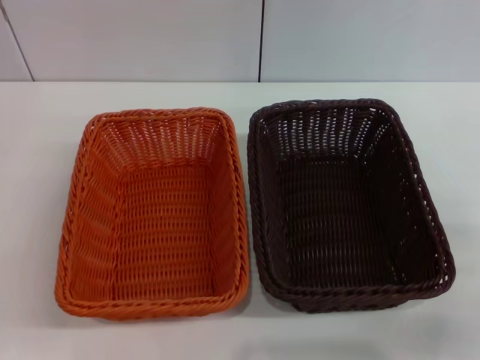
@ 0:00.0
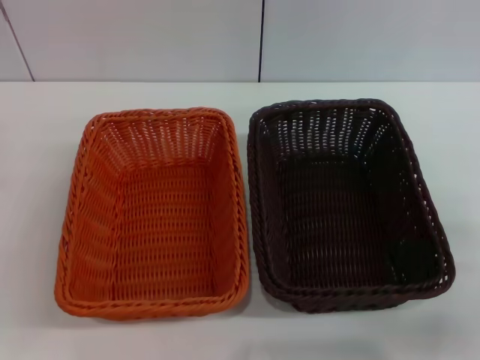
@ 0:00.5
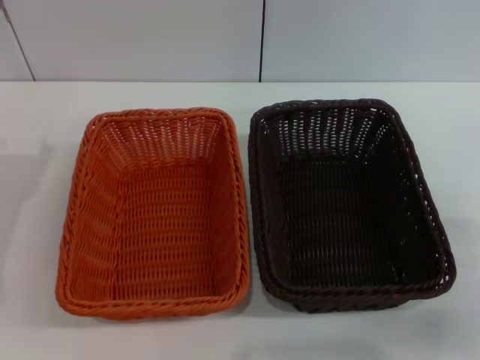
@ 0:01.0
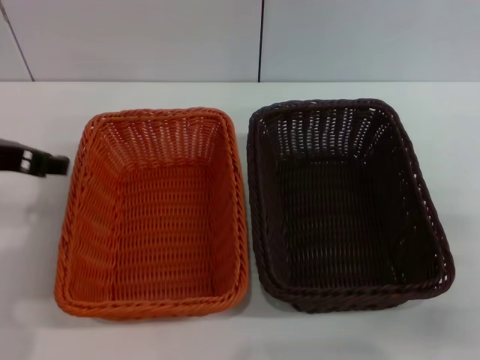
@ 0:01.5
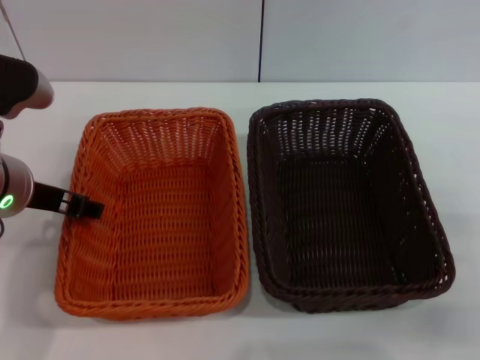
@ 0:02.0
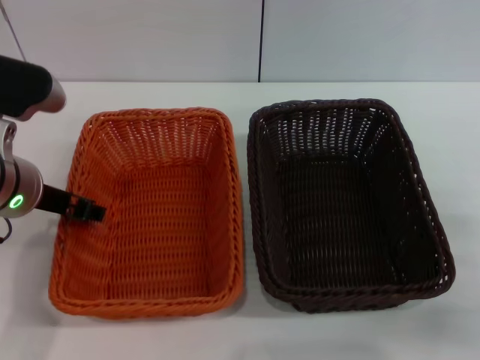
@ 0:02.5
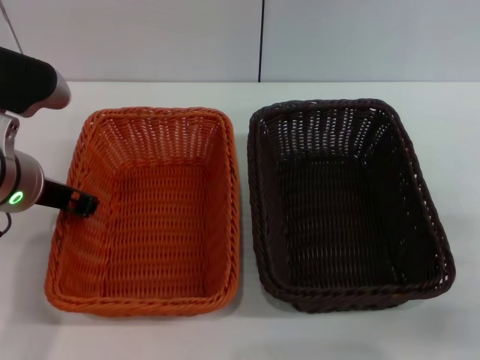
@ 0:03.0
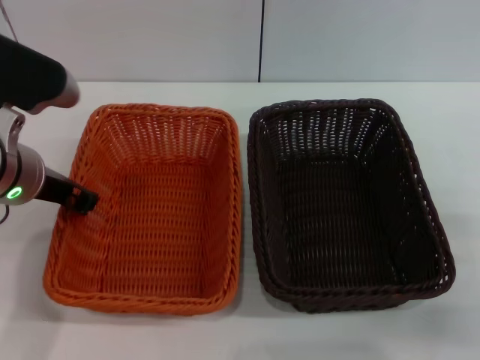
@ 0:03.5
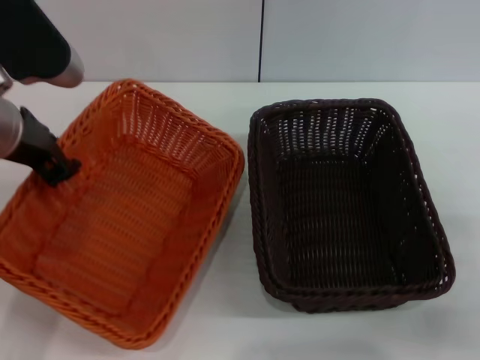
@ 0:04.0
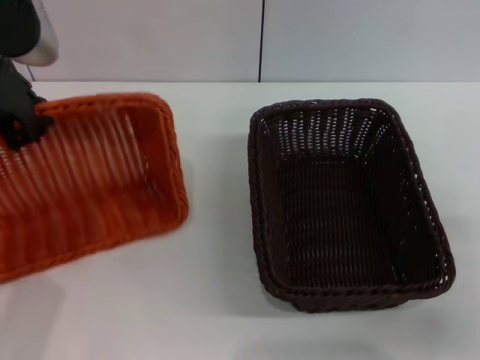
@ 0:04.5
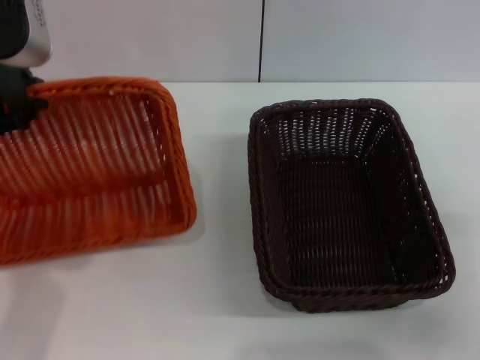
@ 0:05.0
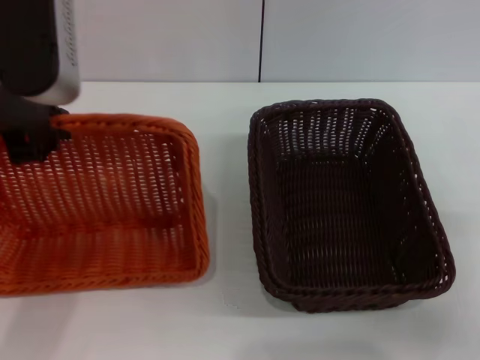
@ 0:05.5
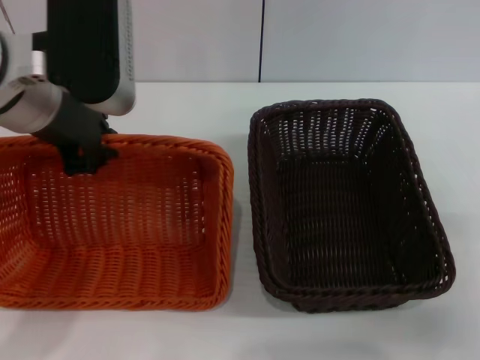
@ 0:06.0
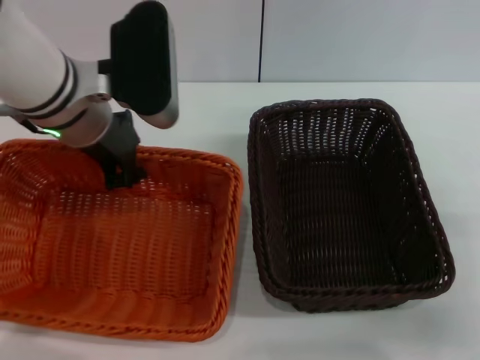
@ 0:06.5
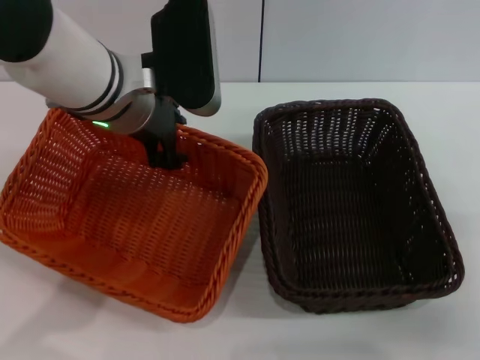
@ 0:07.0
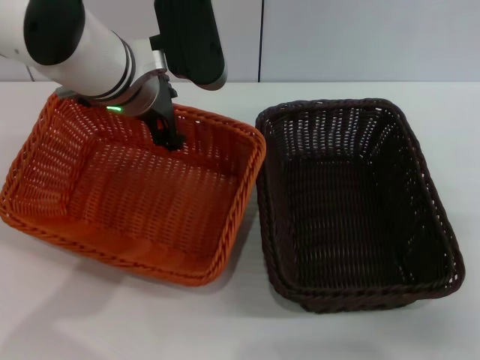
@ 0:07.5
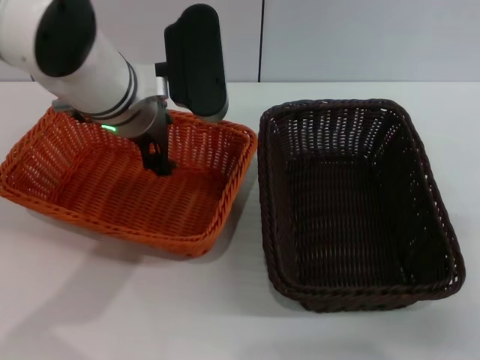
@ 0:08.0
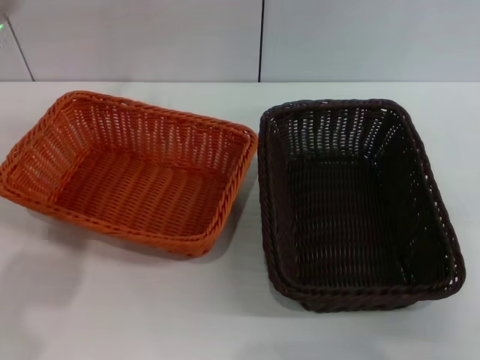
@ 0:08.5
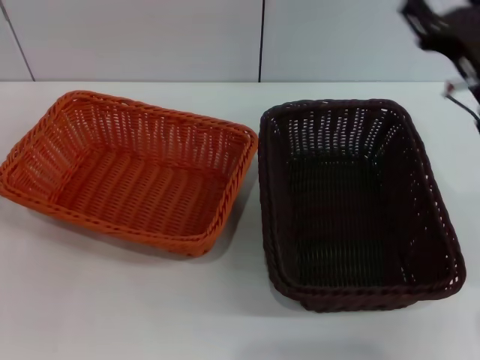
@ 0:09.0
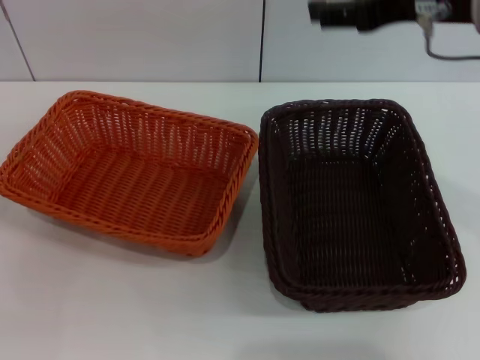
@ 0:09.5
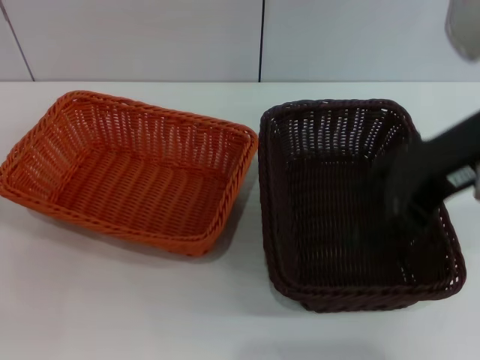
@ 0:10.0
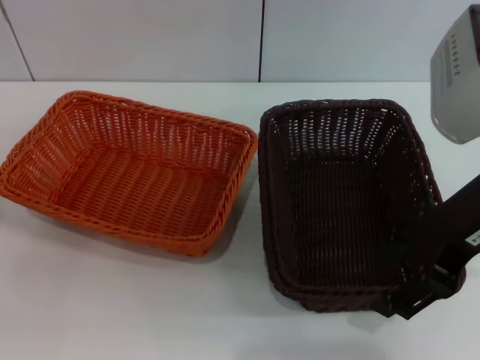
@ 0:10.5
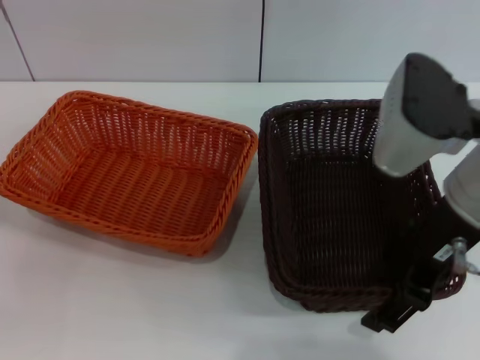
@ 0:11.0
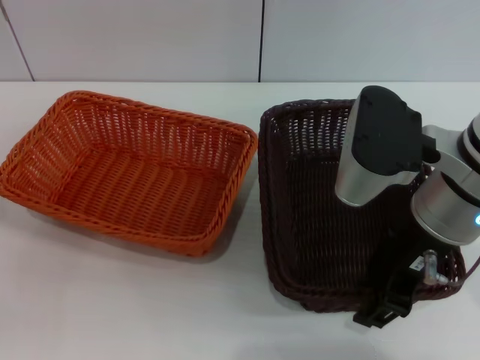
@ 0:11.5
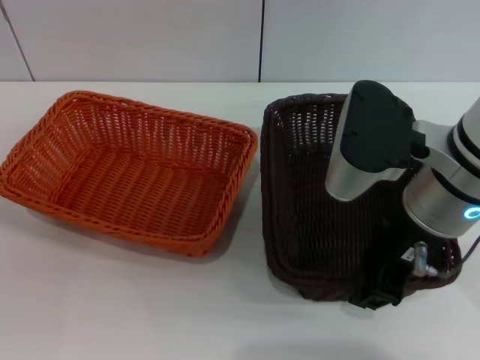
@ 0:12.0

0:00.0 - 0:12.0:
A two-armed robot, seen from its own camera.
Step, 0:00.0 - 0:03.5: Pick up the light basket with the left gripper.
Step, 0:04.0 - 0:07.5: Place the light basket in the center of view with the left gripper.
0:00.0 - 0:02.0: The left gripper heads to the right, upward and forward, covering about 20 cm.
0:02.0 - 0:04.0: The left gripper heads upward, covering roughly 5 cm, and closes.
0:04.0 - 0:06.0: The left gripper changes place by roughly 5 cm.
0:06.0 - 0:08.0: The left gripper goes roughly 10 cm downward, to the right and forward, and opens.
0:08.0 - 0:10.0: The right gripper shifts roughly 25 cm upward and to the left, while the left gripper heads to the left, backward and downward, covering approximately 35 cm.
0:10.0 - 0:12.0: The right gripper travels downward by about 10 cm, and closes up.

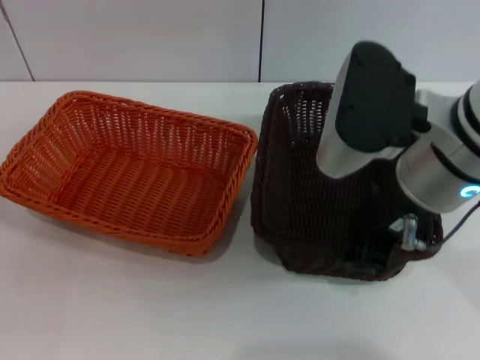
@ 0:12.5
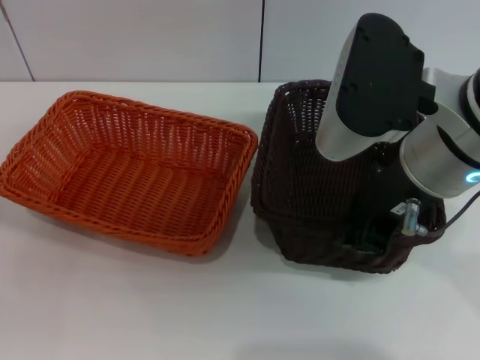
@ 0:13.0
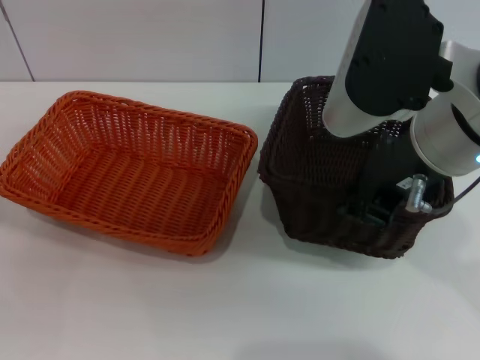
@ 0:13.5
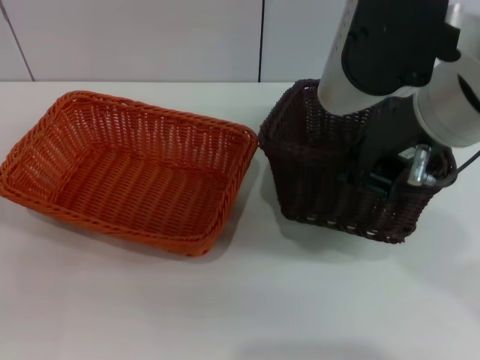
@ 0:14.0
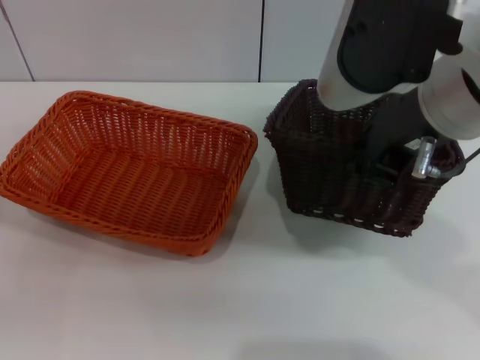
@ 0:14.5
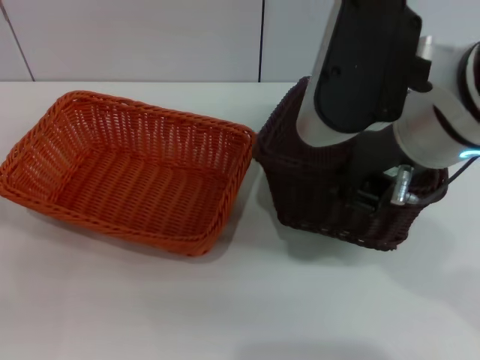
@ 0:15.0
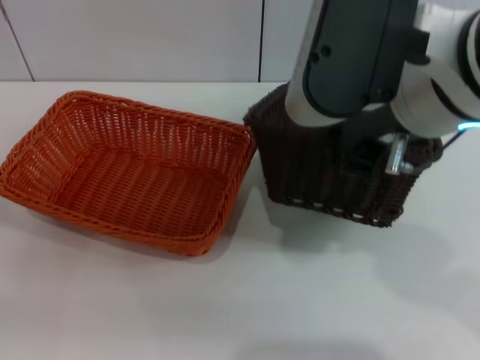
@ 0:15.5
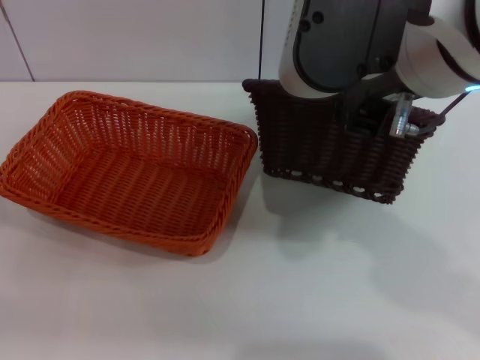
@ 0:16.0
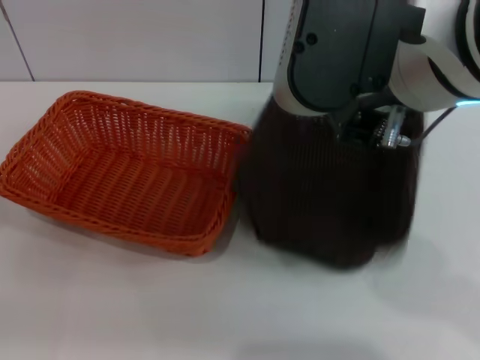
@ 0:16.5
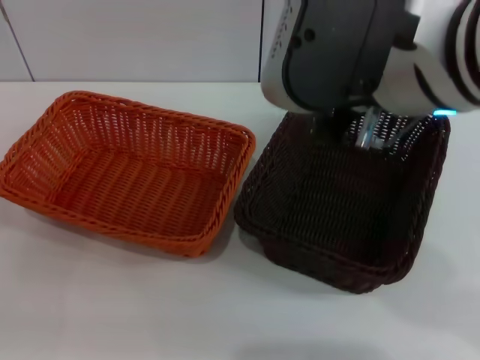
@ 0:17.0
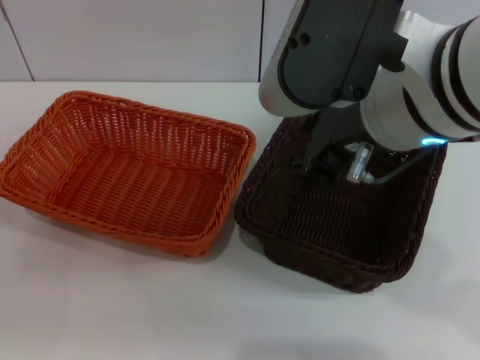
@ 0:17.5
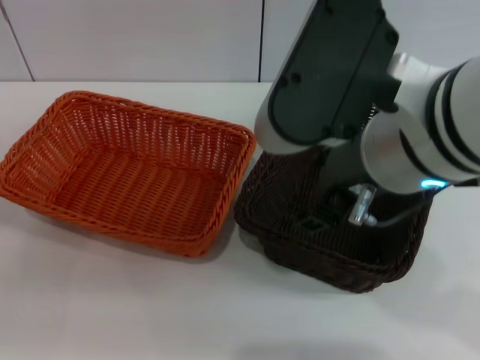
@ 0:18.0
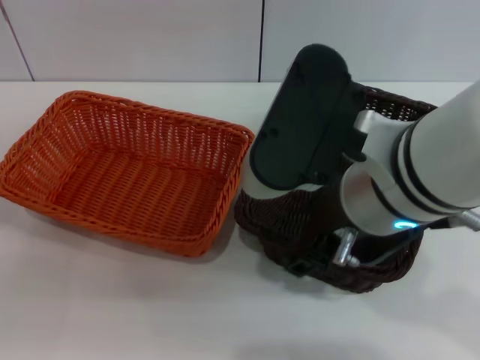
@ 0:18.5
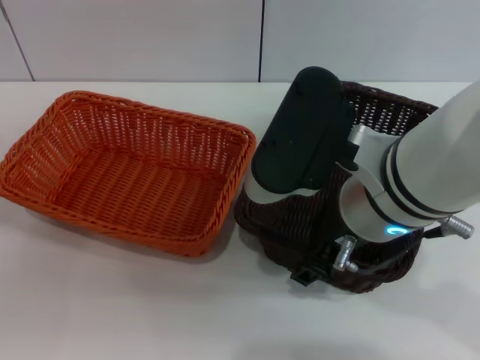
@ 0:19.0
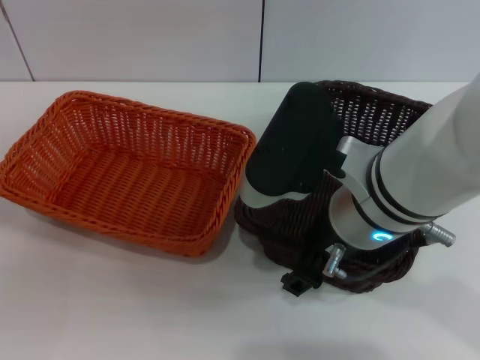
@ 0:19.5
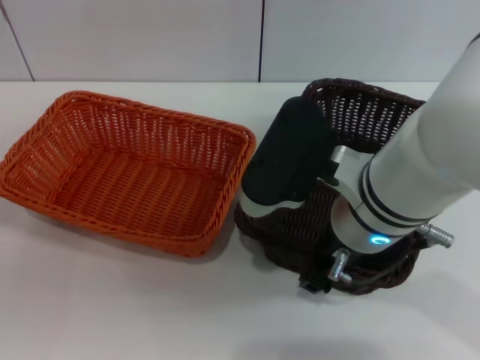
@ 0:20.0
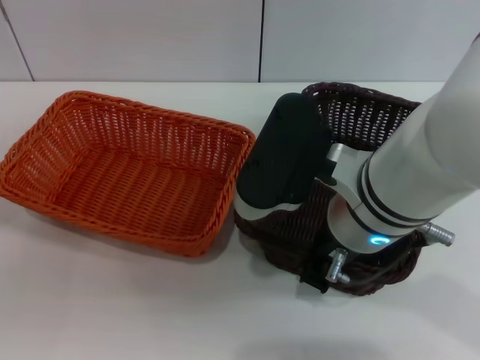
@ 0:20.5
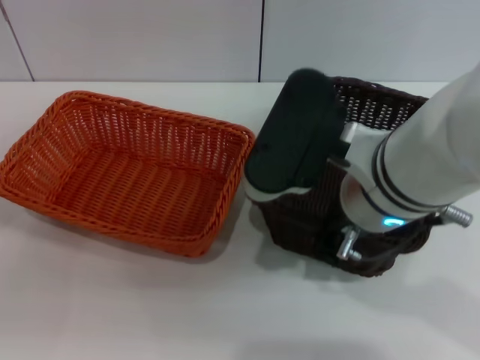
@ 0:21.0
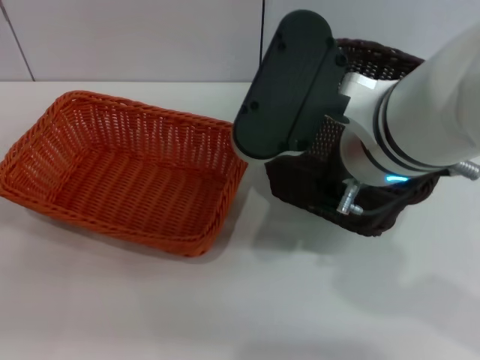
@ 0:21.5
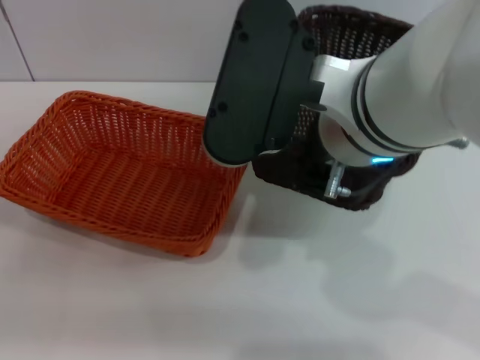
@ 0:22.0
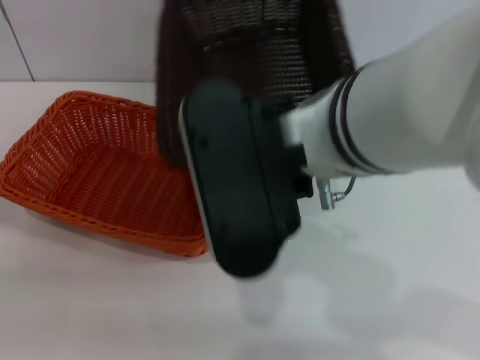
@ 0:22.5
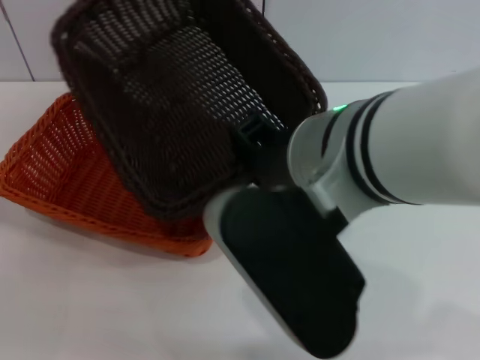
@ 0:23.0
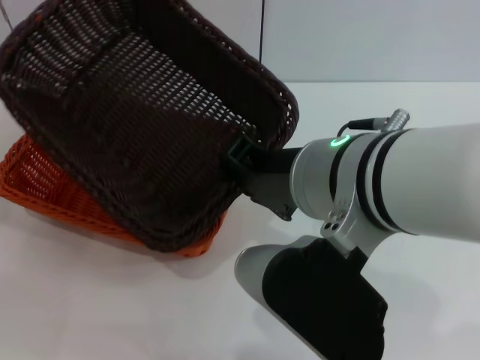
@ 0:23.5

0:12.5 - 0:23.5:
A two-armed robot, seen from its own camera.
0:12.5 - 0:14.5: The right gripper heads upward, covering about 5 cm.
0:14.5 - 0:16.0: There are only small adjustments of the grippers.
0:16.0 - 0:18.0: The right gripper travels downward by about 5 cm, and opens.
0:18.0 - 0:20.0: The right gripper moves downward, roughly 10 cm.
0:20.0 - 0:21.5: The right gripper goes approximately 5 cm upward, and closes.

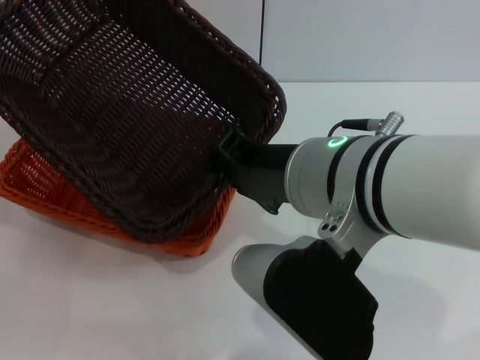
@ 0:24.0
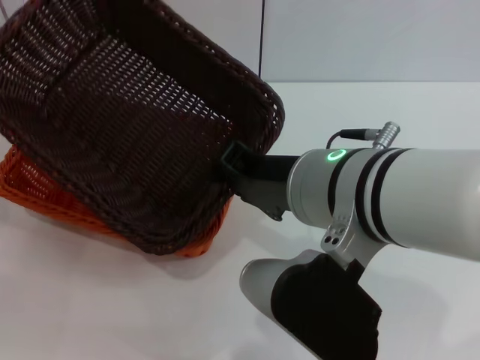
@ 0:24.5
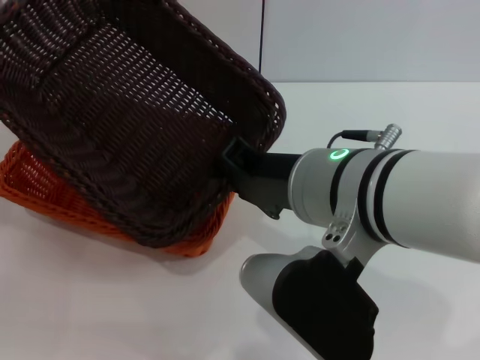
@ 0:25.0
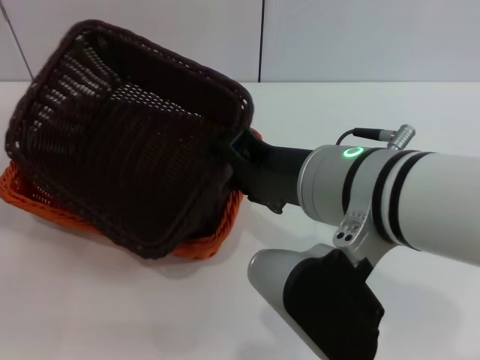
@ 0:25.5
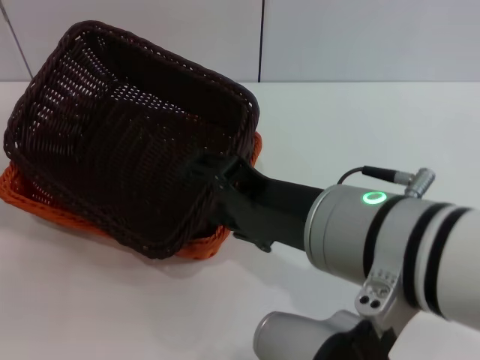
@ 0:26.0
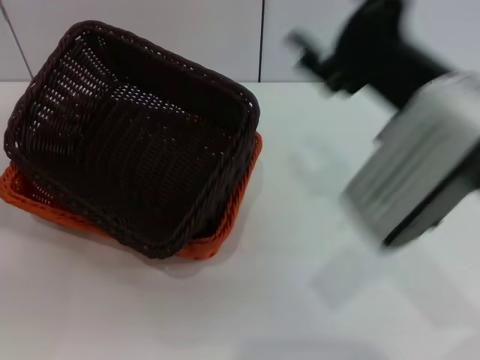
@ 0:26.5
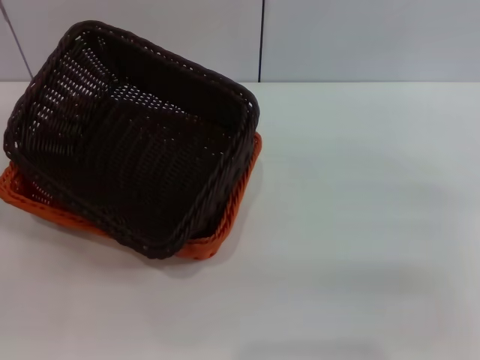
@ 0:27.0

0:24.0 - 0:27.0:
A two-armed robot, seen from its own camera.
0:25.5 - 0:27.0: The right gripper heads to the right, covering roughly 25 cm, and opens.
